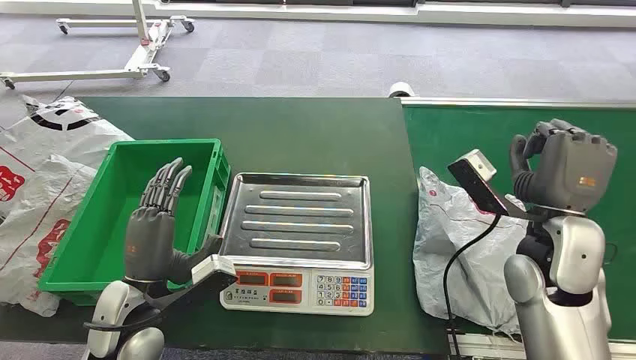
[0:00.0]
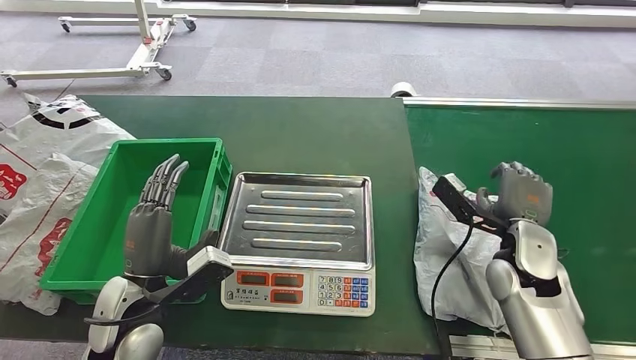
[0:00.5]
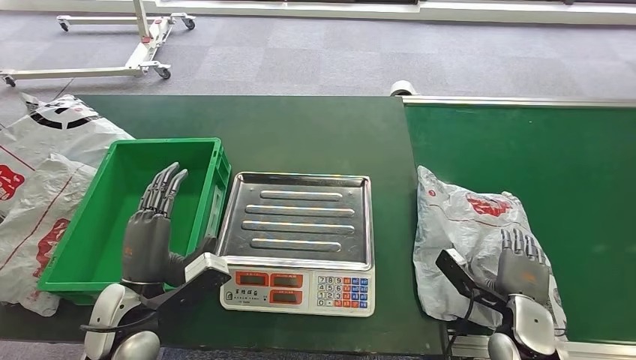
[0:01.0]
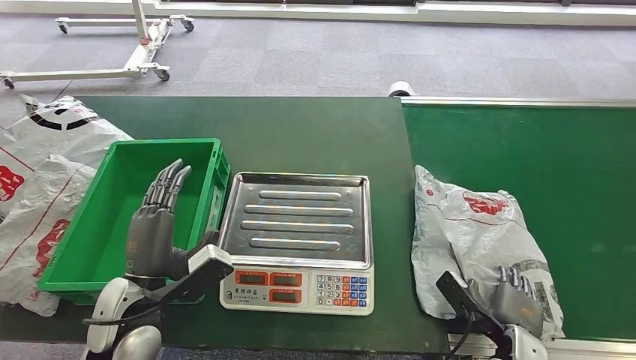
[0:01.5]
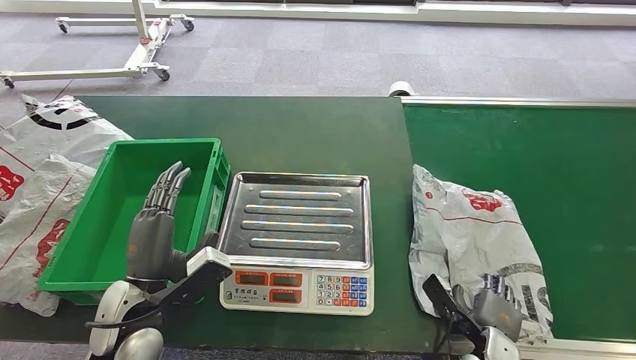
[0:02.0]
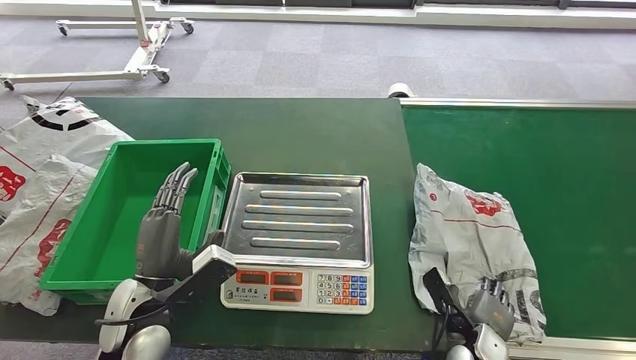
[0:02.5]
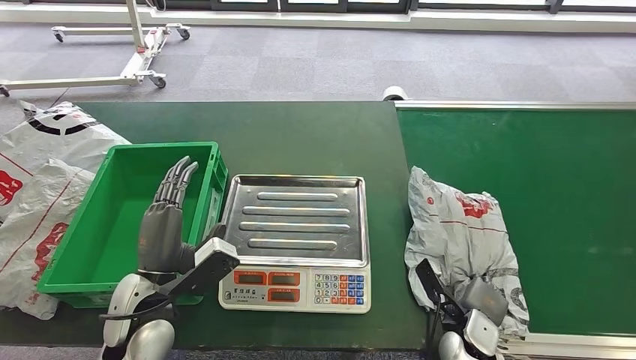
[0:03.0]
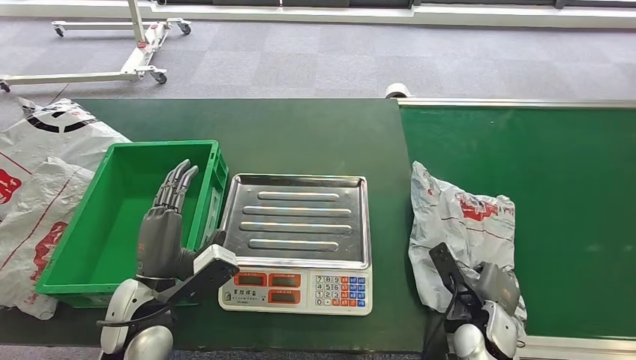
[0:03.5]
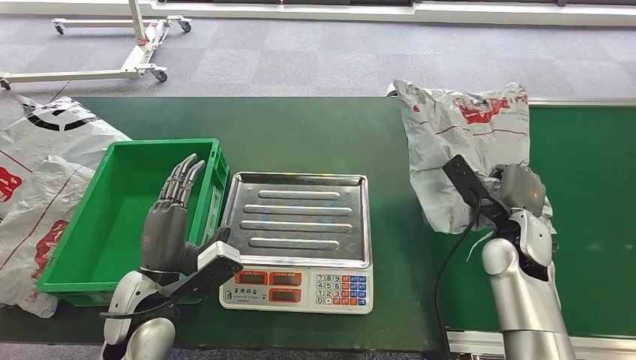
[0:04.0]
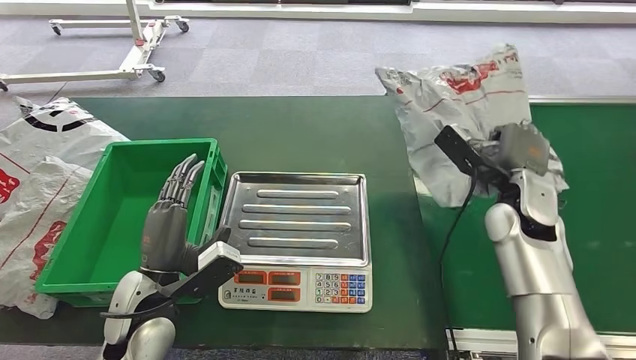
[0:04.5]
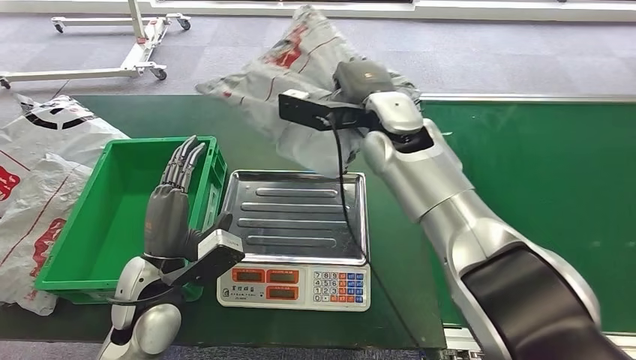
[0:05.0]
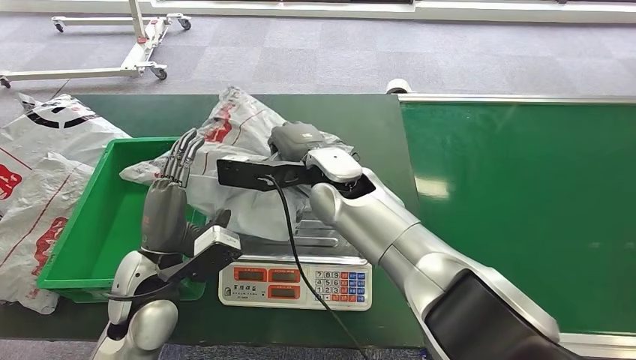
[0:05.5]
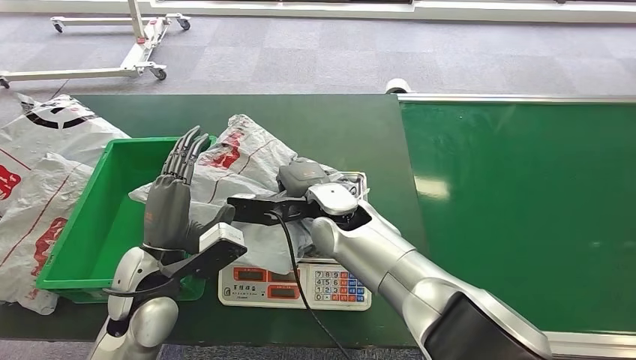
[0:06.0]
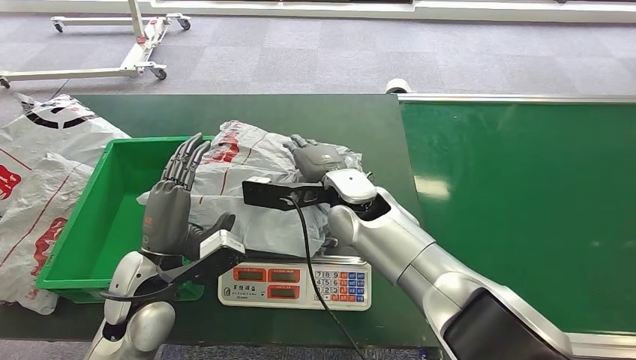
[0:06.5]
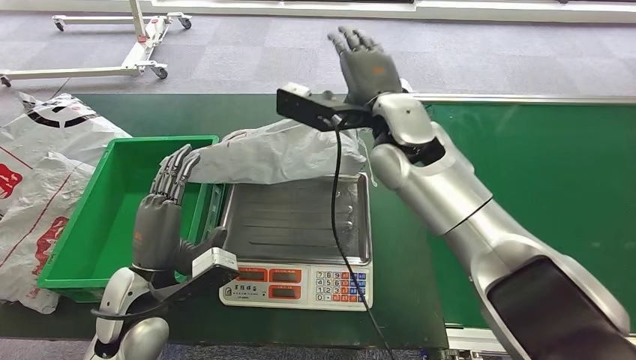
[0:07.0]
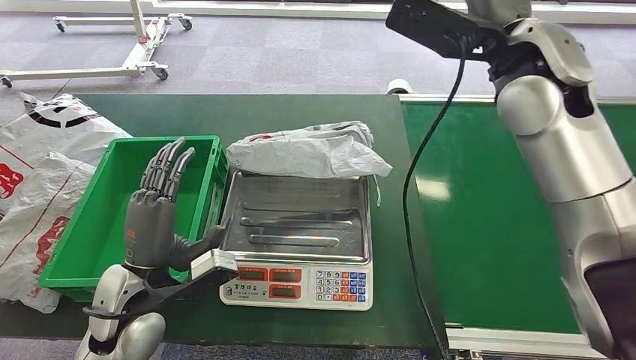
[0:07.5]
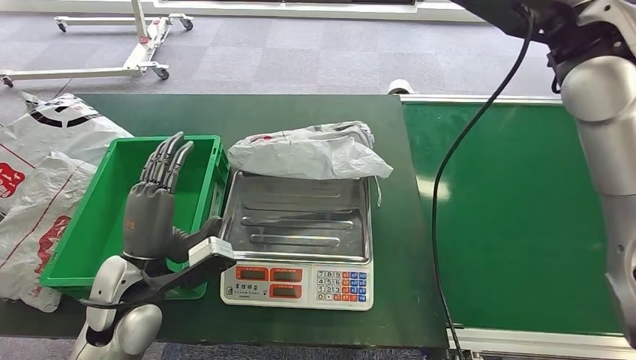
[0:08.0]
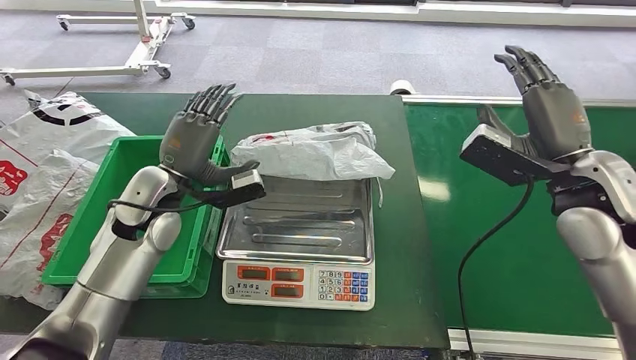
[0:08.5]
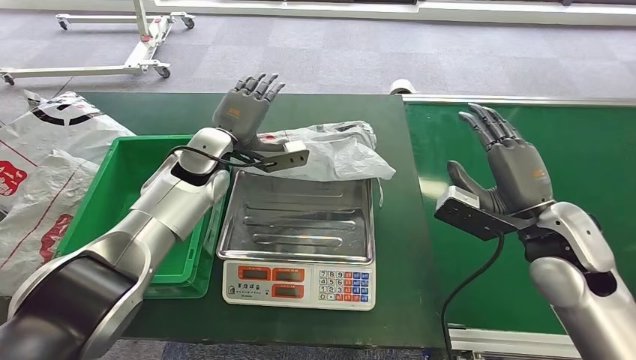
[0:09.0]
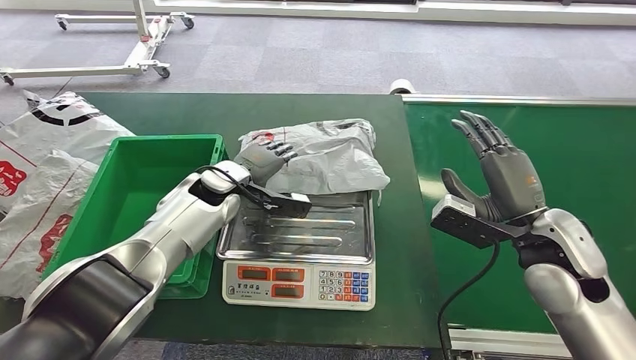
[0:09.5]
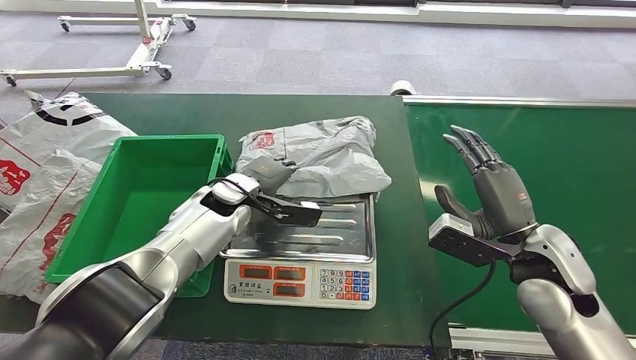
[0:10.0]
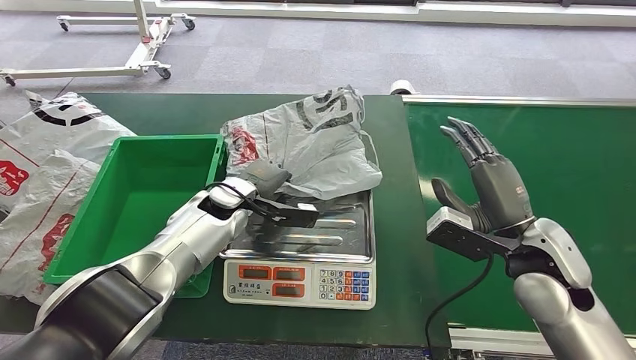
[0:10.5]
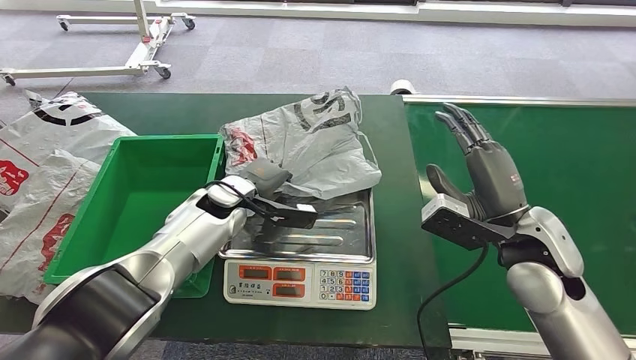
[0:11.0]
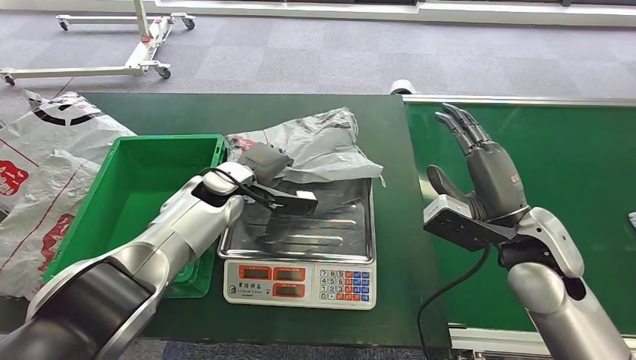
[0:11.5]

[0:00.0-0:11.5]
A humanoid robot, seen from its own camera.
Task of the whole recording: Weigh the package on the weighing device and place it in the left basket.
Step, 0:00.0 to 0:04.0: Pick up the package from the conveyor belt.
Step, 0:04.5 to 0:06.5: Place the package onto the inbound machine.
0:09.5 to 0:11.5: The hands make only small movements.

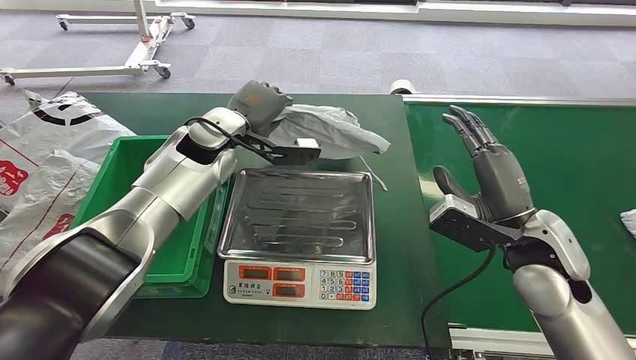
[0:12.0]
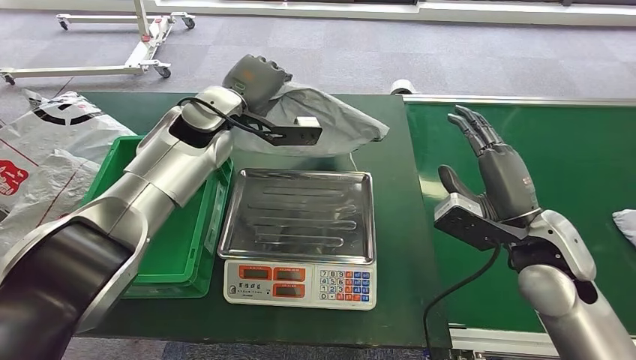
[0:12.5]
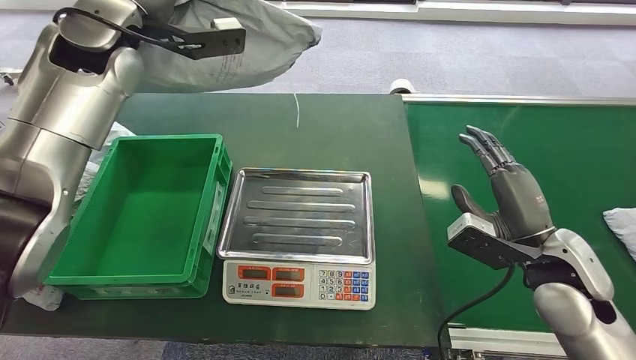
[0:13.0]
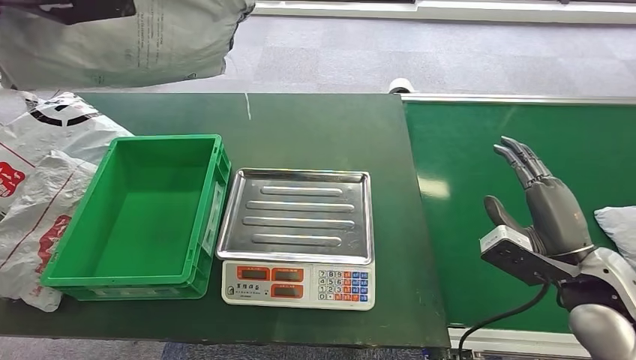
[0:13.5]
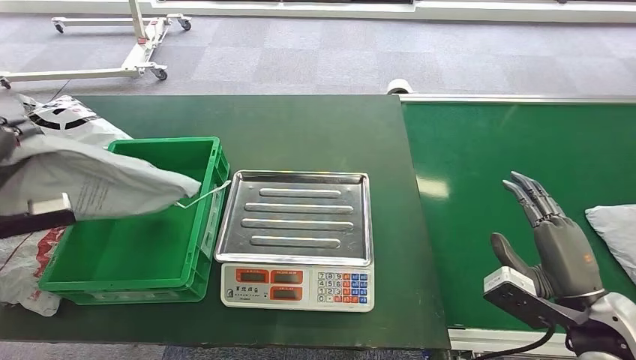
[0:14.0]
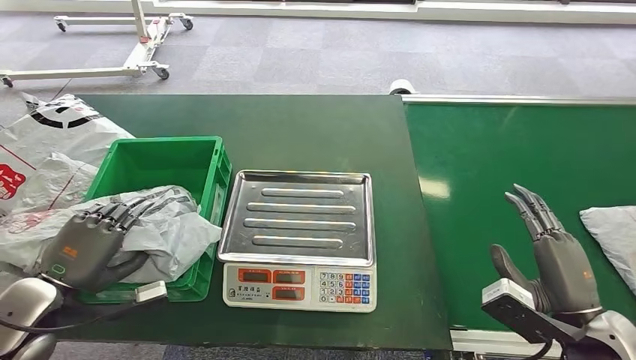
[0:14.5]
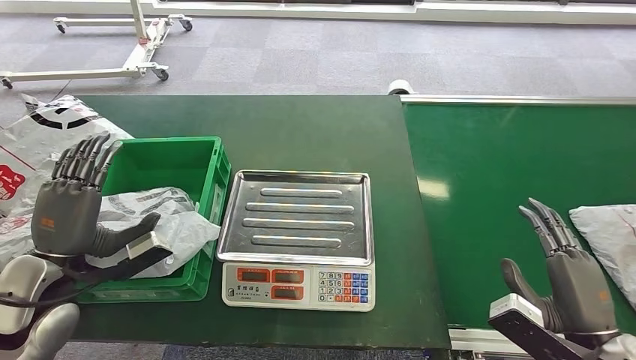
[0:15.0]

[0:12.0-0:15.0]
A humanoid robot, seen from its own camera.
Task of the whole recording: Weigh the package on the weighing device and place it in the left basket.
Step, 0:12.5 to 0:15.0: Place the package into the parcel locker.

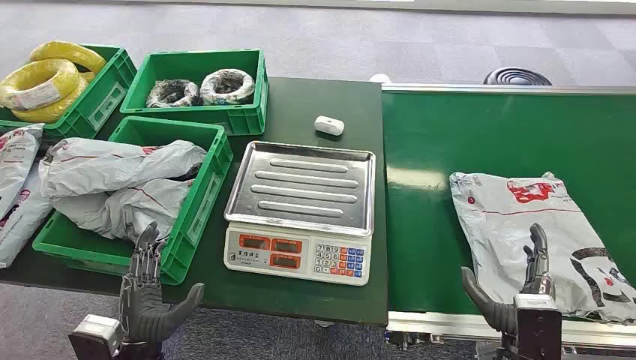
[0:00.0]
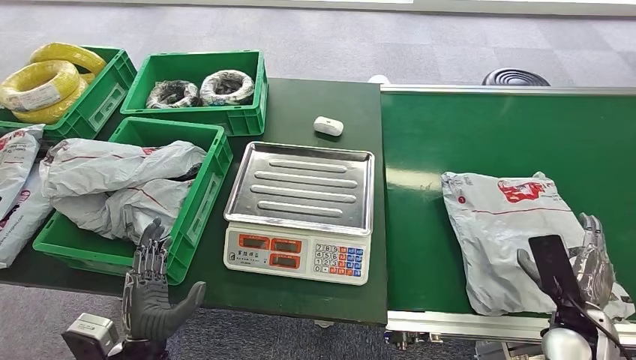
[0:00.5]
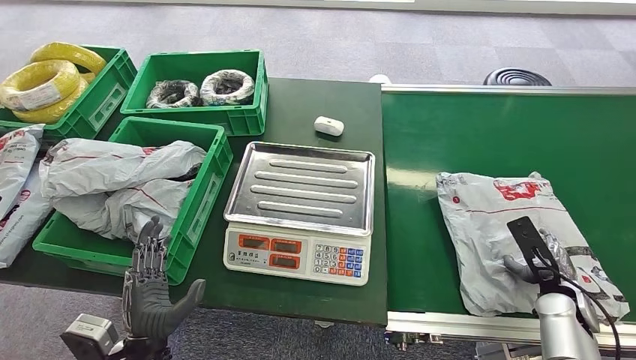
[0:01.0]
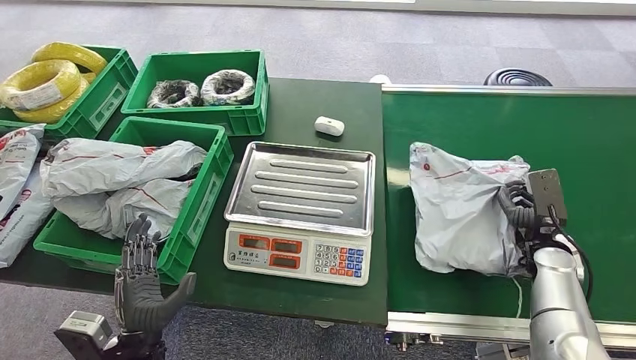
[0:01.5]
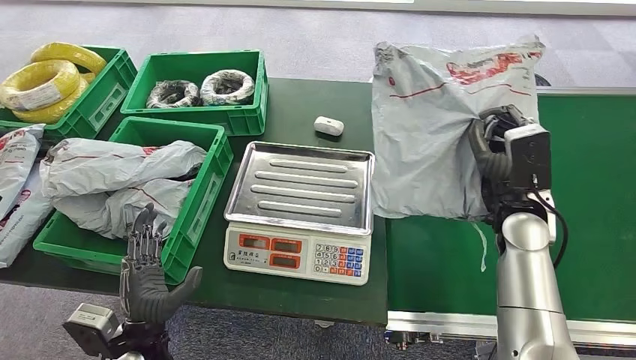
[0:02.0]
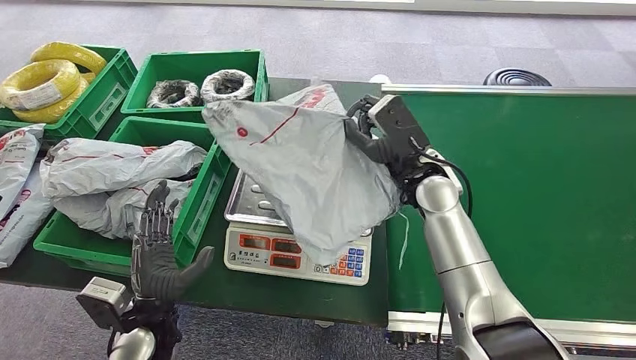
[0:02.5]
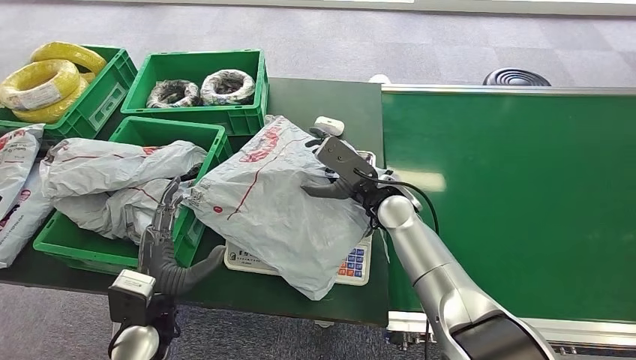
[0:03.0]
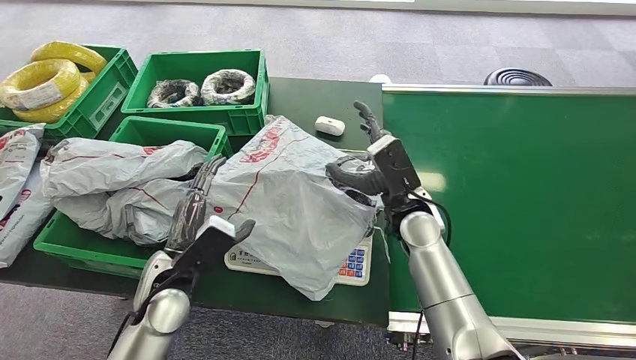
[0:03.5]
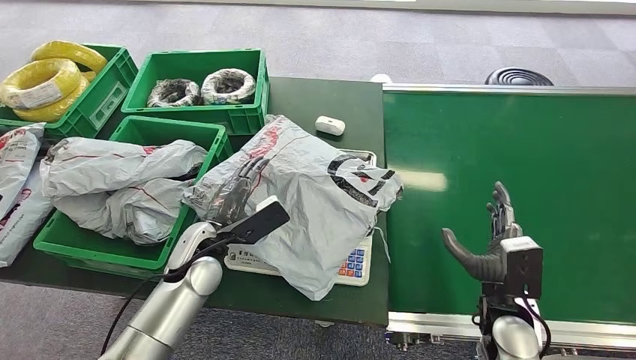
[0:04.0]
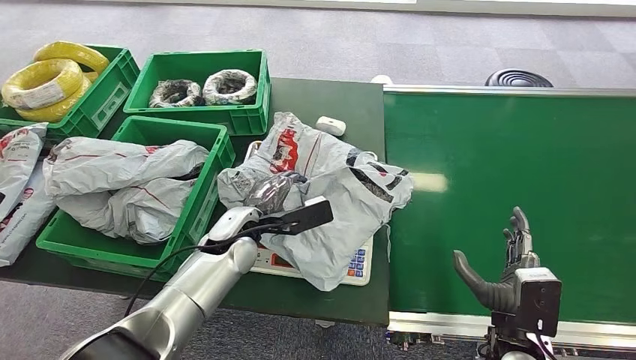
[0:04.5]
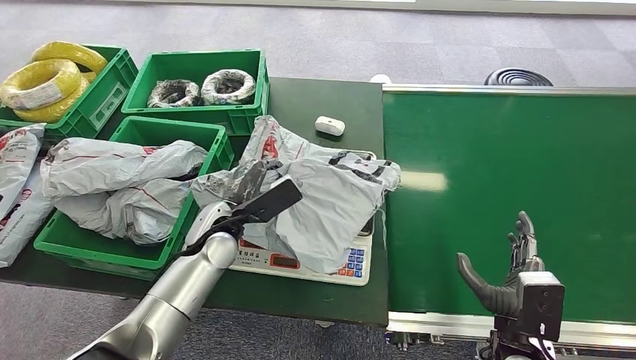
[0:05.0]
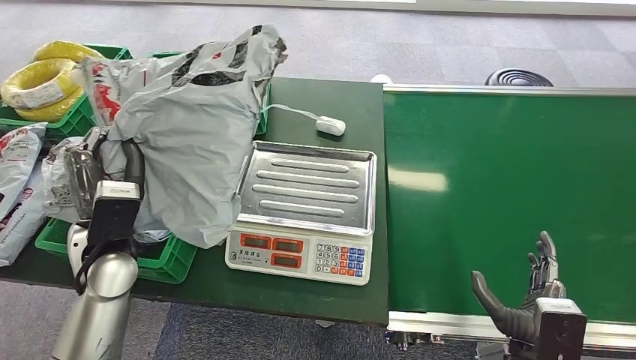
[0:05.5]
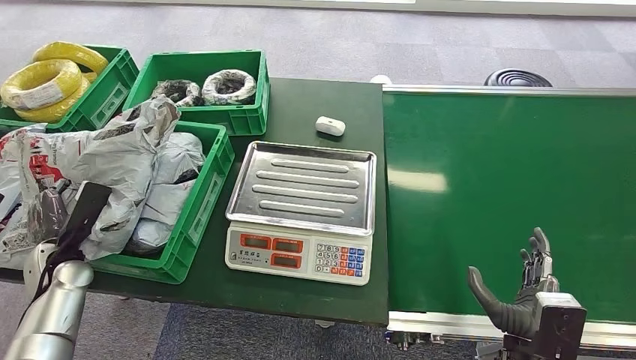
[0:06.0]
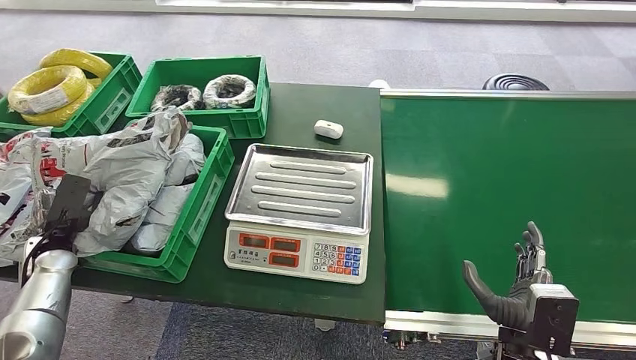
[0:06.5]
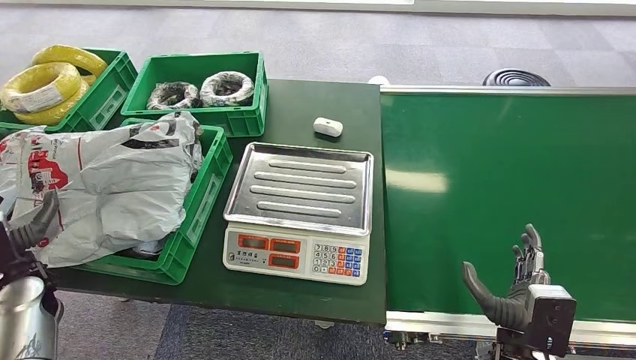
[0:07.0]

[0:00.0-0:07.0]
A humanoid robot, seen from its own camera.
Task of the whole recording: Weigh the package on the weighing device and place it in the left basket.
Step, 0:00.0 to 0:01.5: Pick up the package from the conveyor belt.
Step, 0:02.0 to 0:03.0: Place the package onto the inbound machine.
Step, 0:03.5 to 0:05.0: Pick up the package from the inbound machine.
Step, 0:05.5 to 0:07.0: Place the package into the parcel locker.
0:03.5 to 0:05.0: The right hand heads backward, to the right and downward, covering roughly 25 cm. The left hand heads forward and to the right, covering approximately 10 cm.
